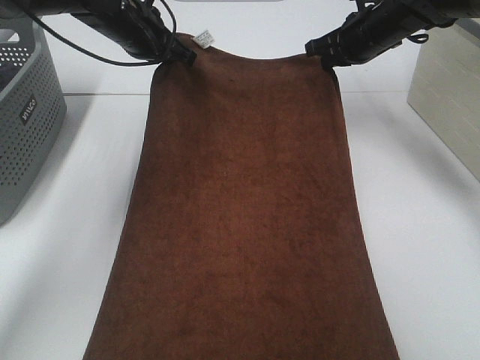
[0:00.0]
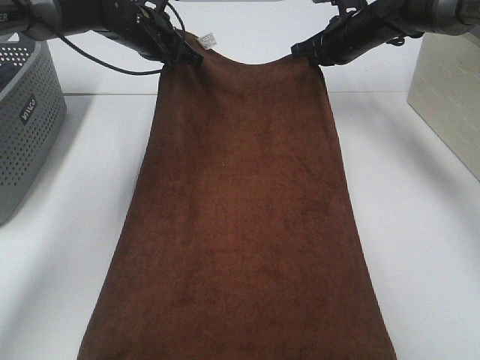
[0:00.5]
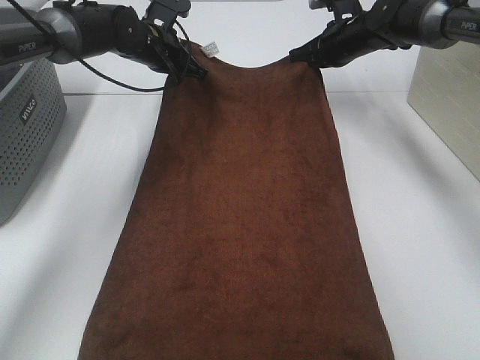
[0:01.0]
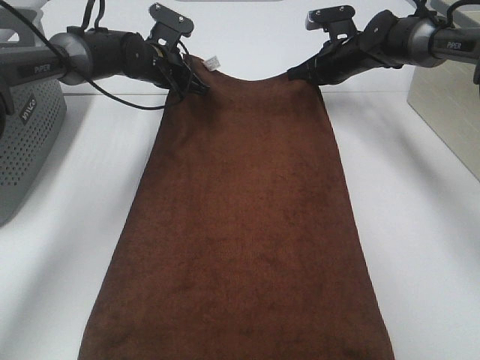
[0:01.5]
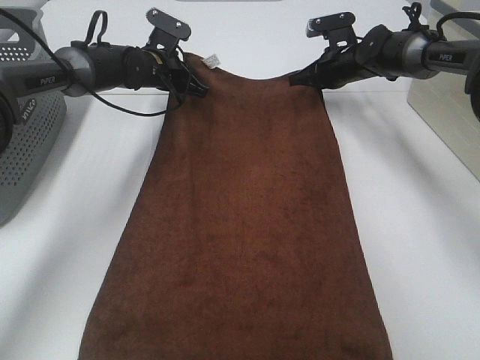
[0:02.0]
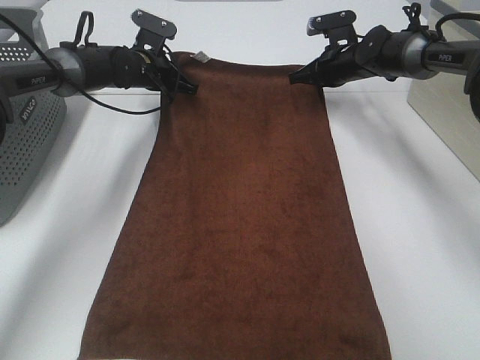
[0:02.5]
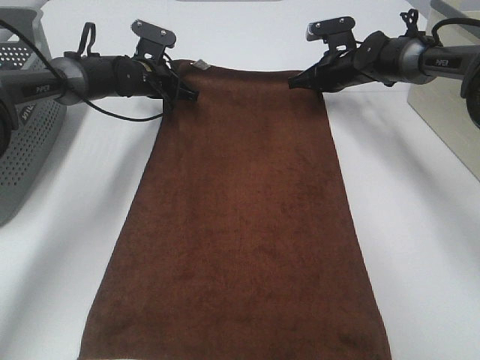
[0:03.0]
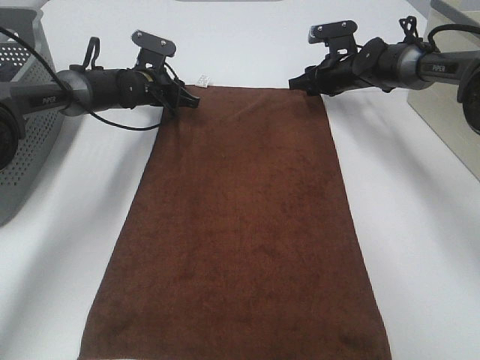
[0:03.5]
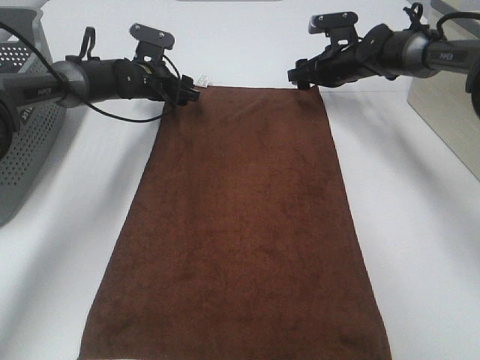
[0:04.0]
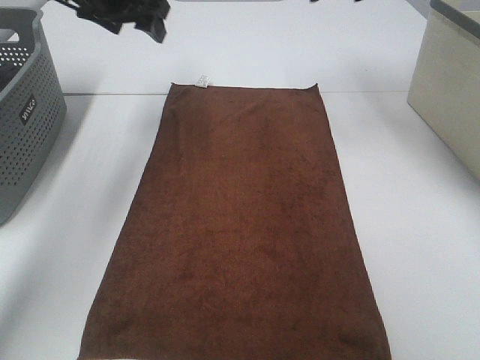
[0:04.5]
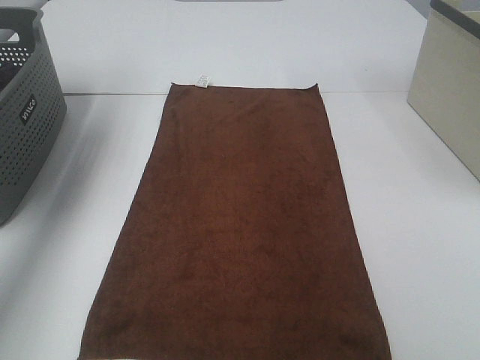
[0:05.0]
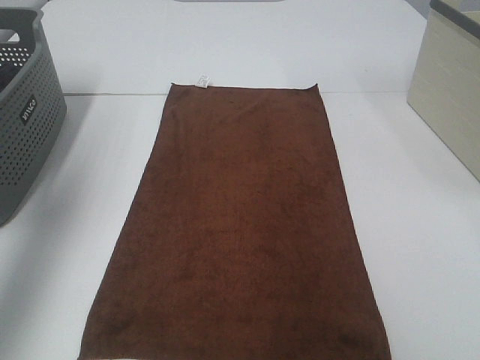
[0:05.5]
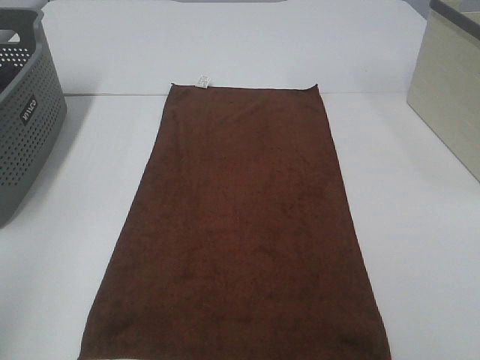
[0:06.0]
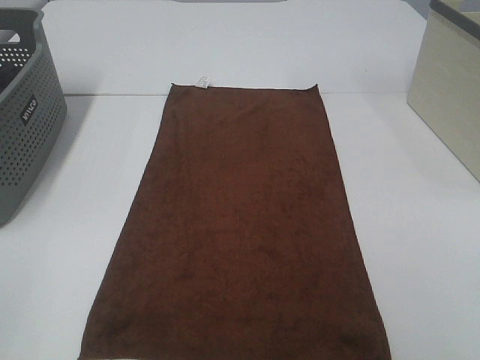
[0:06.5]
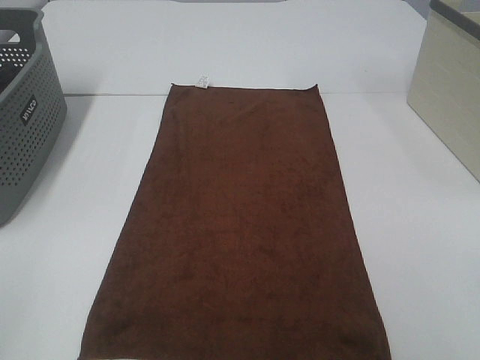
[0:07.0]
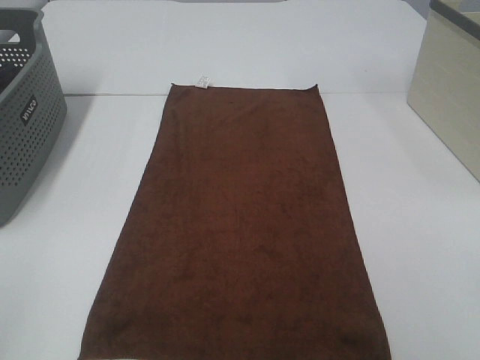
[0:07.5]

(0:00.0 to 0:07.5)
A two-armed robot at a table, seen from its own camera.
Task of the whole recording: Remove the towel and place it.
0:00.0 - 0:02.0: Both grippers travel together downward and forward, about 10 cm.
0:02.0 - 0:04.0: The right gripper opens. Meanwhile the left gripper opens.
0:04.0 - 0:05.5: The left gripper goes approximately 50 cm backward, upward and to the left; the right gripper is displaced backward and upward by some 50 cm.
0:05.5 - 0:07.5: The left gripper travels backward and downward by roughly 30 cm.

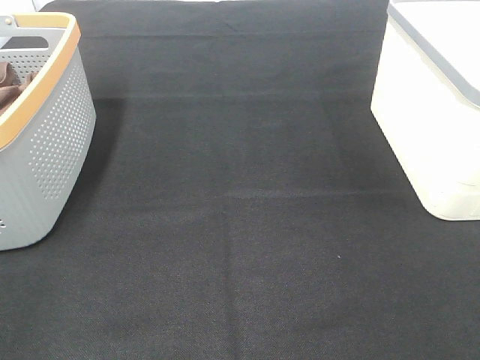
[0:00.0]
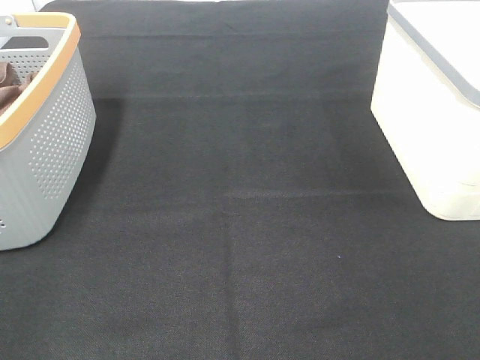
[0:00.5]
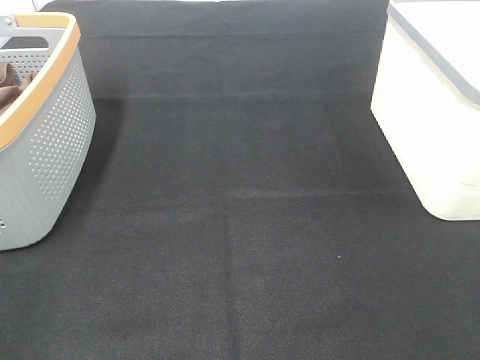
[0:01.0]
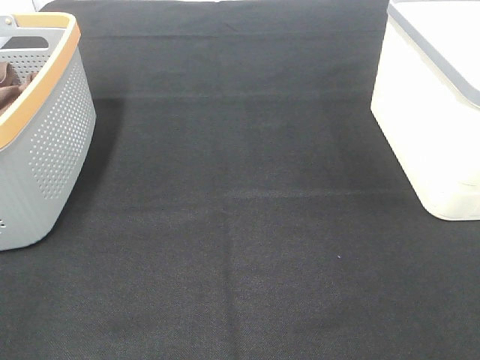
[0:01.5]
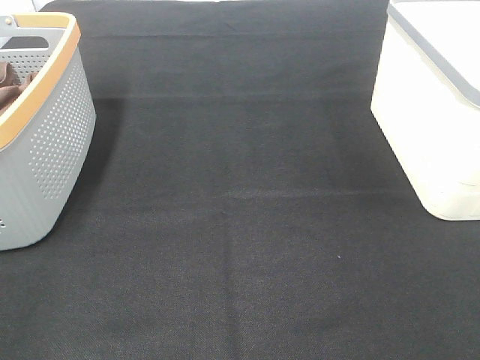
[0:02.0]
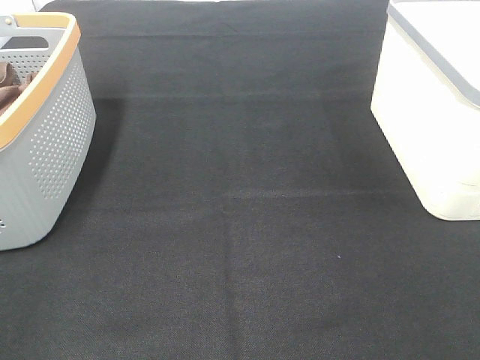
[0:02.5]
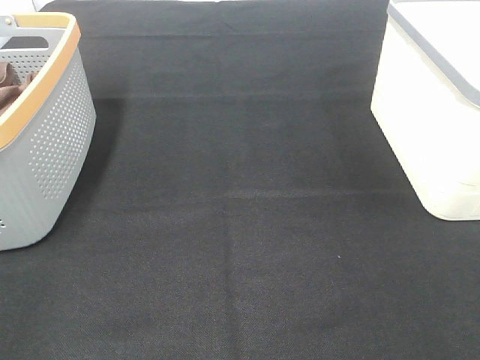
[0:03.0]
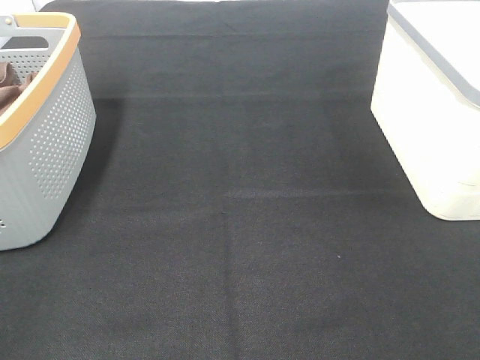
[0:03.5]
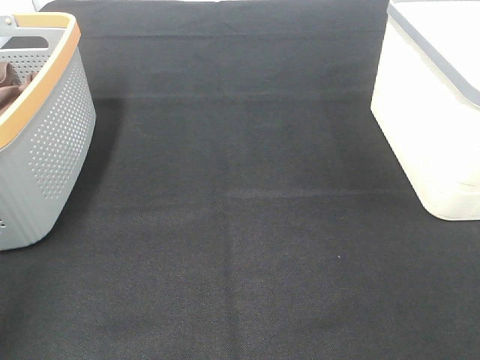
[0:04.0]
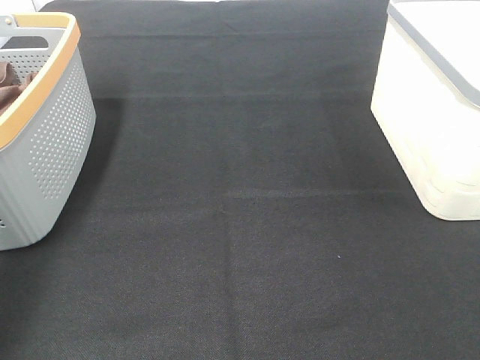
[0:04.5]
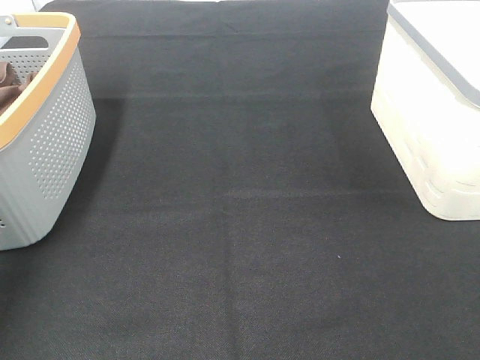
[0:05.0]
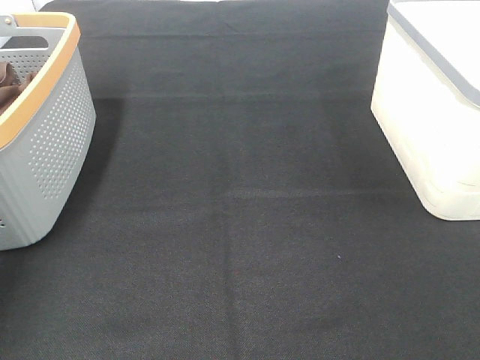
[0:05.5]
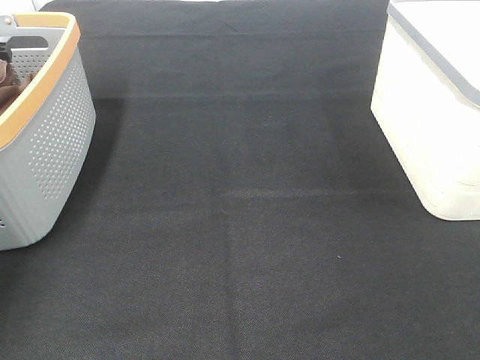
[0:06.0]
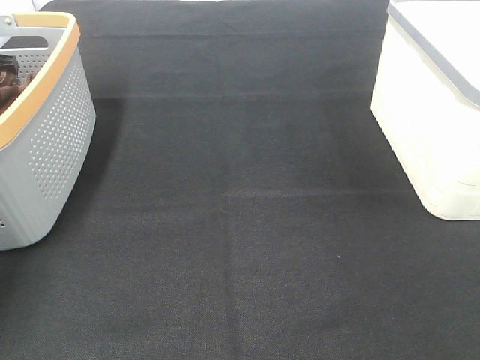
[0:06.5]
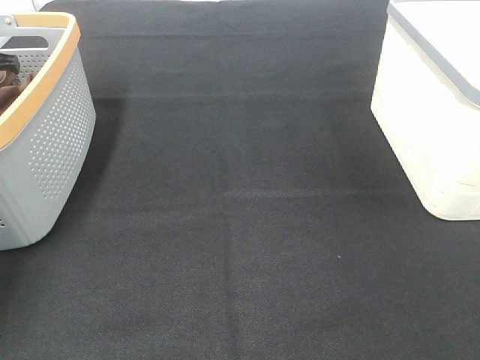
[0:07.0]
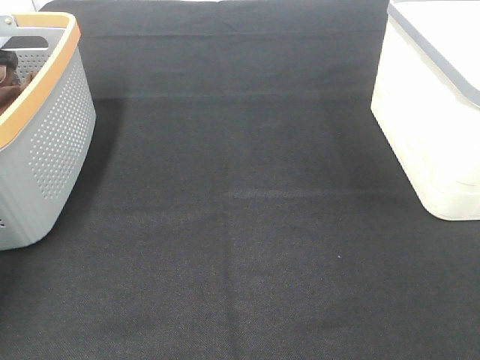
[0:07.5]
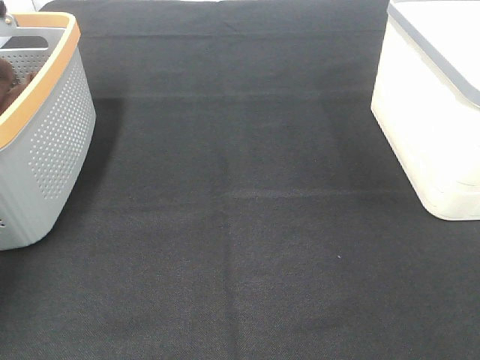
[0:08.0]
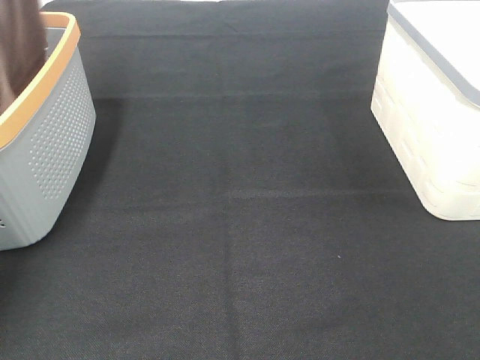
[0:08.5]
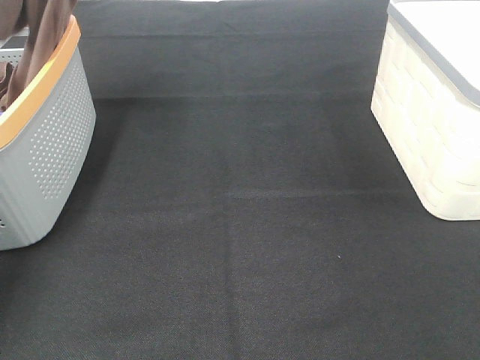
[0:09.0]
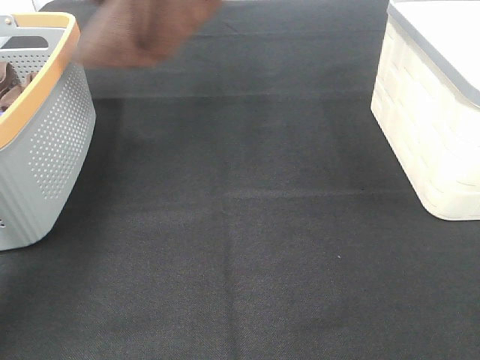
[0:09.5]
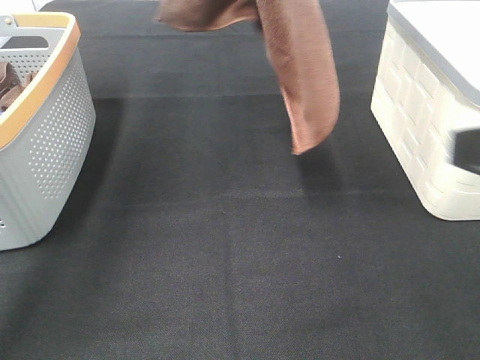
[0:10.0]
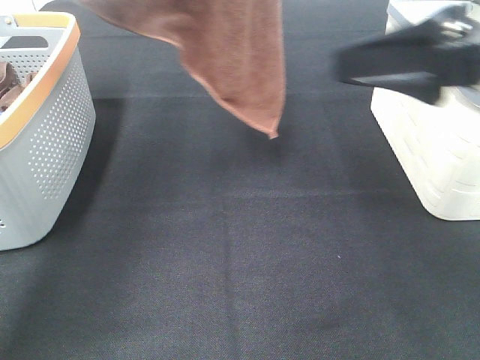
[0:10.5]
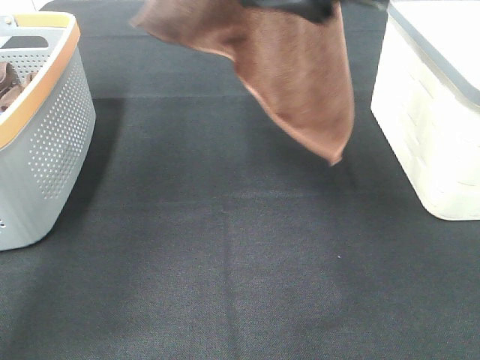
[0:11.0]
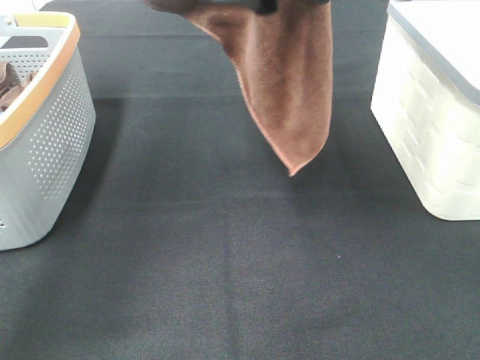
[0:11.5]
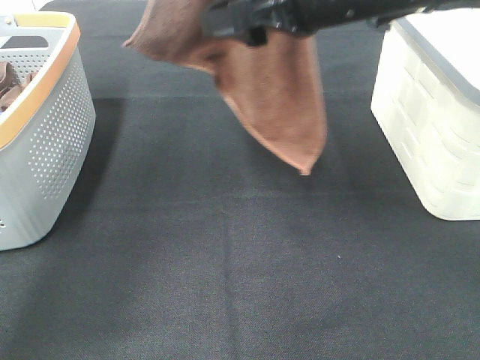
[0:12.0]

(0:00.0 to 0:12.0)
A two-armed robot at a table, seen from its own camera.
Task of the whole recording: Remove the towel and place it.
0:00.0 - 0:02.0: Neither gripper changes place.
0:04.0 - 0:06.0: The left gripper moves forward, roughly 35 cm.
0:08.0 - 0:10.0: The right gripper shifts about 10 cm forward. The left gripper heads to the right and upward, covering roughly 35 cm.
0:10.0 - 0:12.0: The right gripper is displaced forward and to the left by about 25 cm.

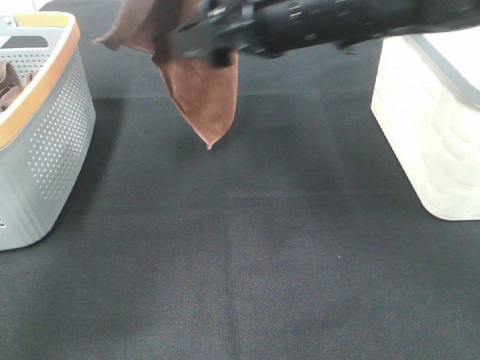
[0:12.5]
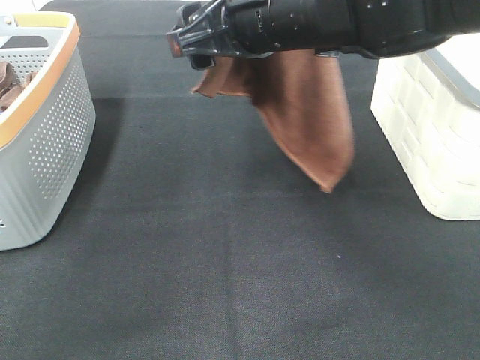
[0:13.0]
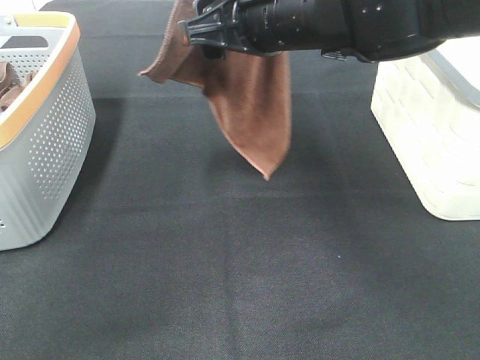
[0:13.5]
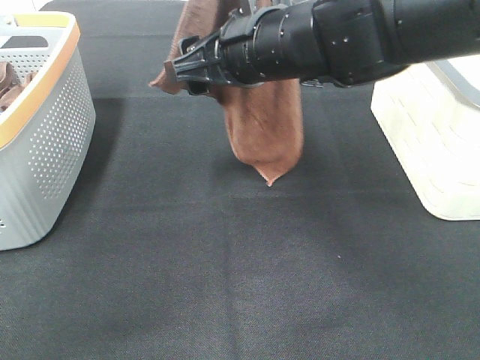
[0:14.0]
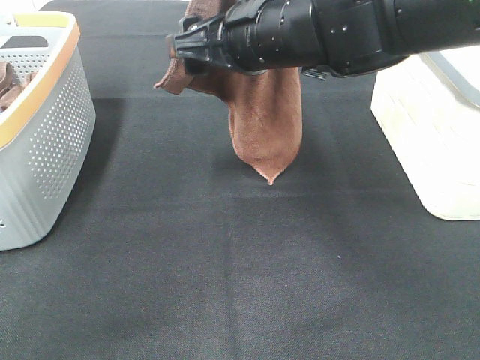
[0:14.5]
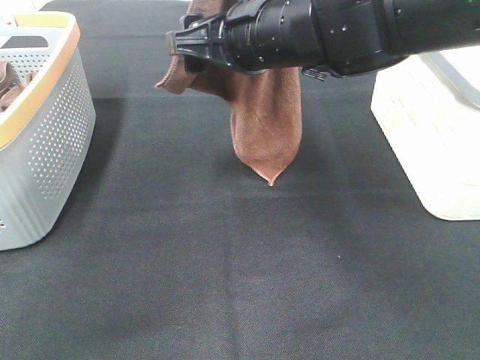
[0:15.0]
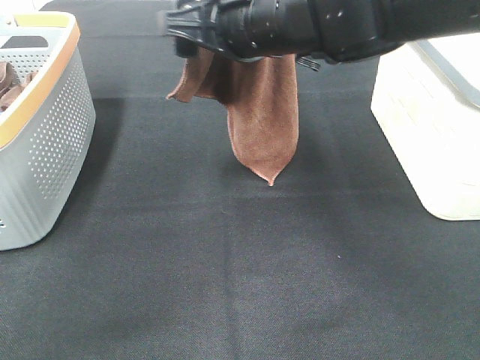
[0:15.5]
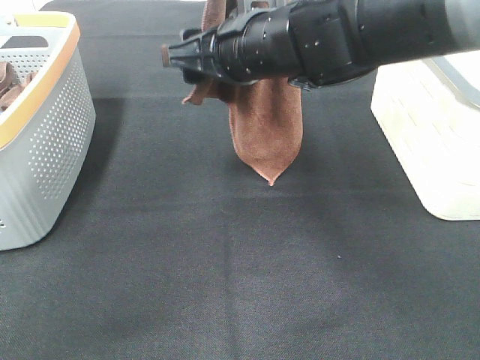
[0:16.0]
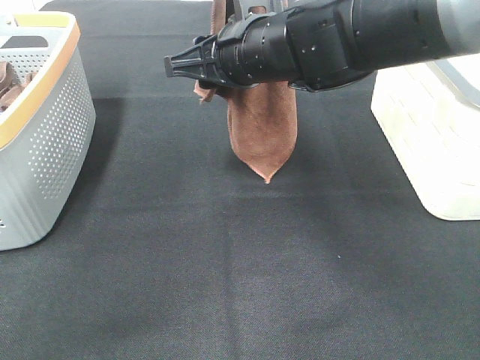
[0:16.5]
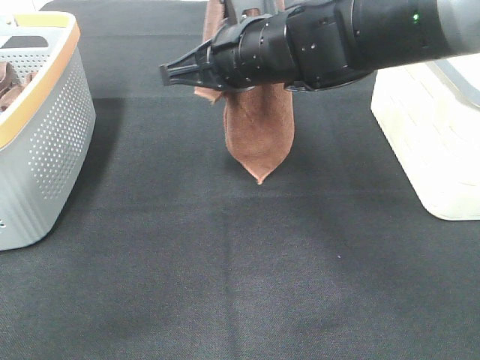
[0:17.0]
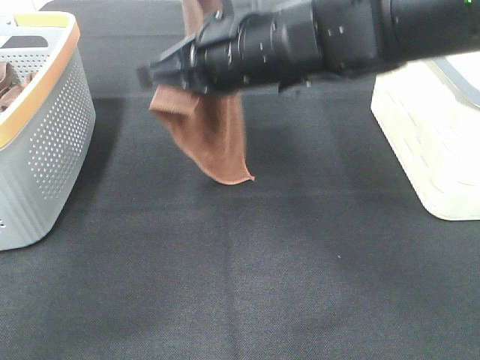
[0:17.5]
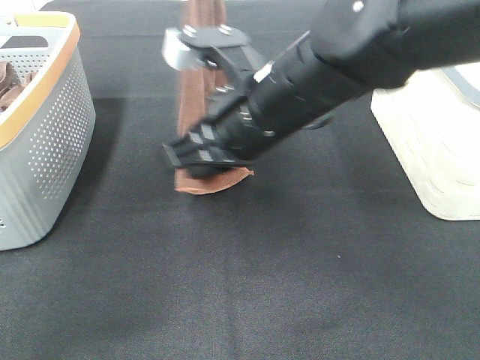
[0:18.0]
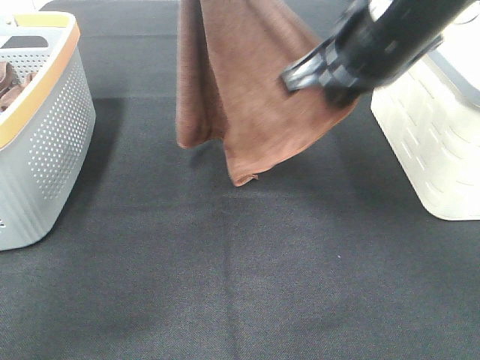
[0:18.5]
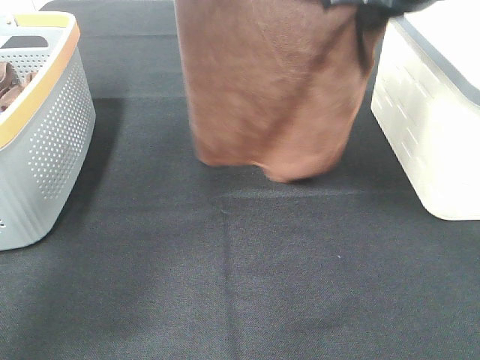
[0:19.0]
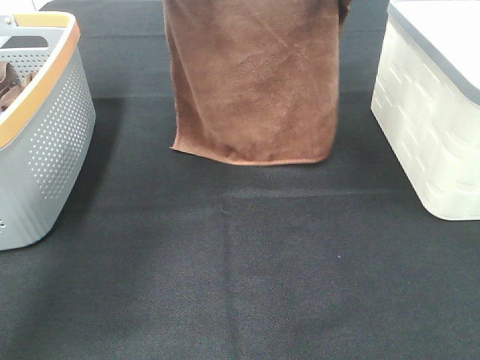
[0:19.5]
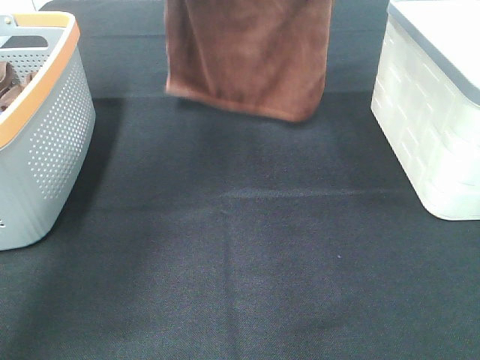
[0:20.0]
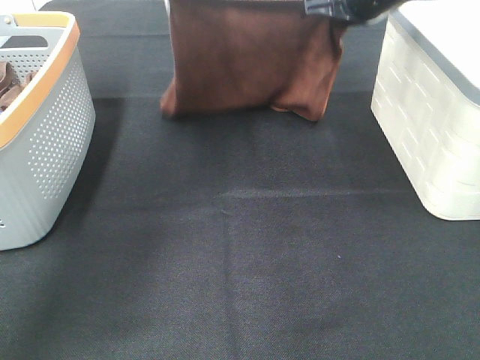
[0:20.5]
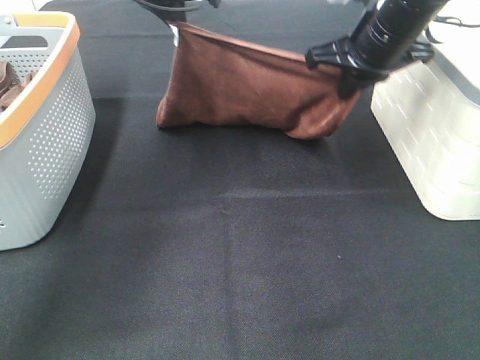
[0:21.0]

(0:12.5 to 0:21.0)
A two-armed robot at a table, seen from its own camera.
Task of the whole recording: Remove the towel and place it.
Step, 0:12.5 - 0:15.0: Right hand: grab a corner of the brown towel and straighten it.
Step, 0:15.5 - 0:18.0: Left hand: spread the brown towel flat on the table.
Step, 0:15.5 - 0:18.0: Right hand: spread the brown towel flat on the table.
0:14.5 - 0:16.5: The right gripper closes.
0:16.5 - 0:19.0: The right gripper goes about 15 cm to the right and upward, and closes up. The left gripper heads to the left, downward and forward, covering approximately 10 cm.
0:19.0 - 0:21.0: The right gripper is displaced downward and forward by roughly 15 cm, while the left gripper is displaced downward by some 10 cm.
